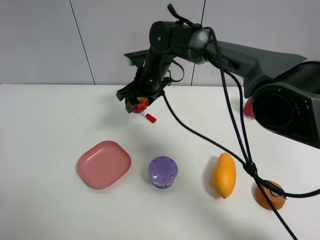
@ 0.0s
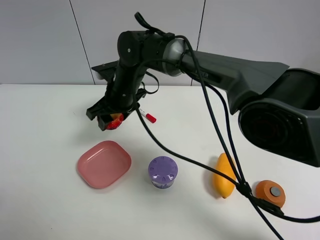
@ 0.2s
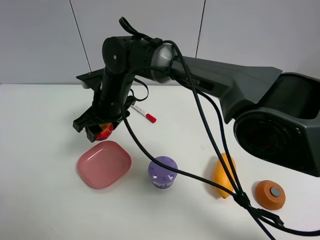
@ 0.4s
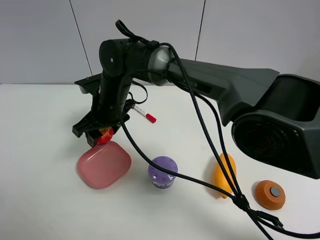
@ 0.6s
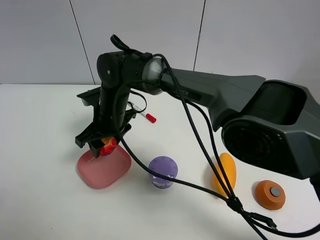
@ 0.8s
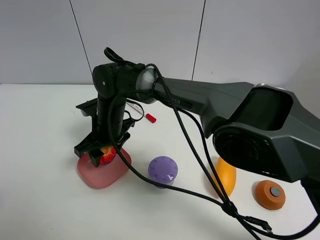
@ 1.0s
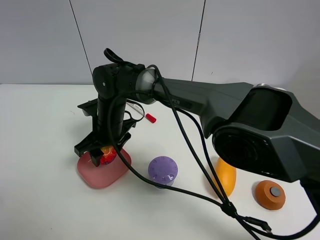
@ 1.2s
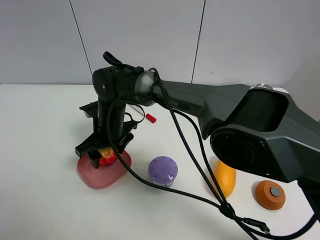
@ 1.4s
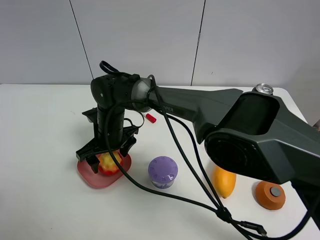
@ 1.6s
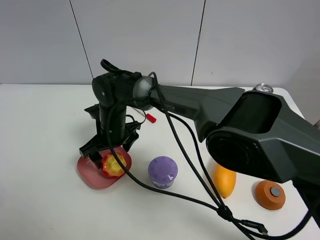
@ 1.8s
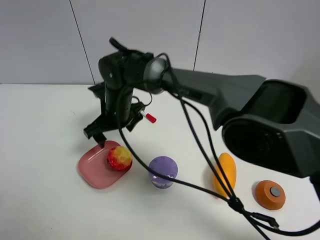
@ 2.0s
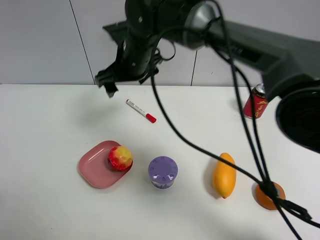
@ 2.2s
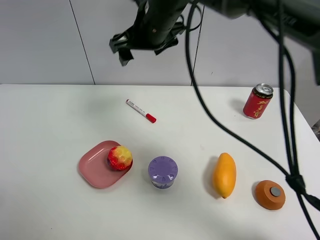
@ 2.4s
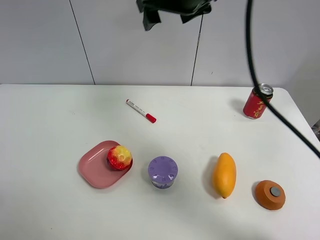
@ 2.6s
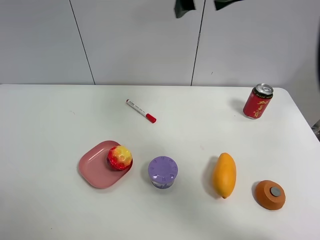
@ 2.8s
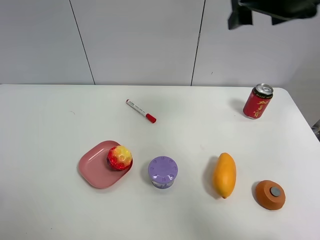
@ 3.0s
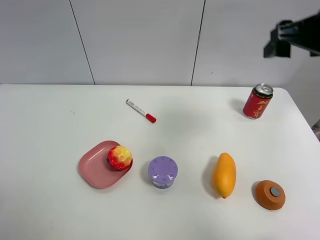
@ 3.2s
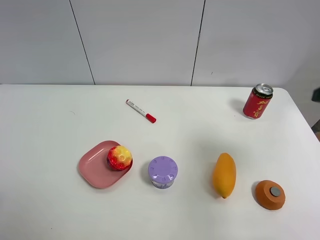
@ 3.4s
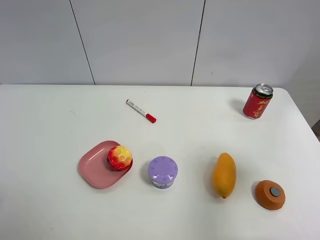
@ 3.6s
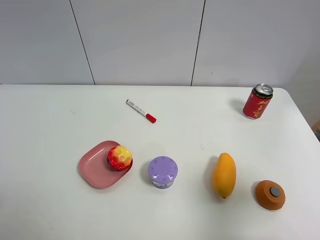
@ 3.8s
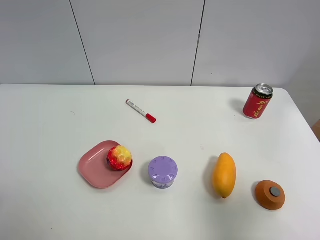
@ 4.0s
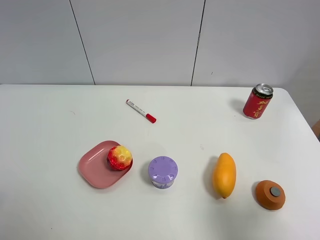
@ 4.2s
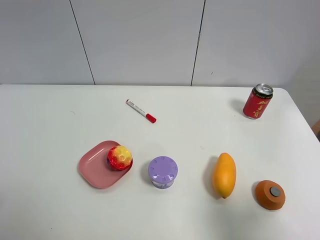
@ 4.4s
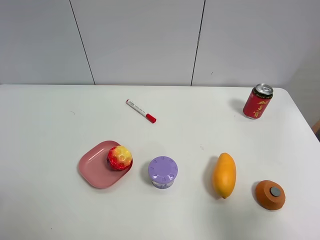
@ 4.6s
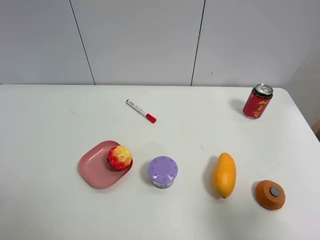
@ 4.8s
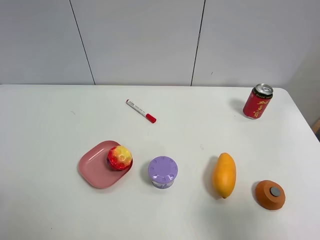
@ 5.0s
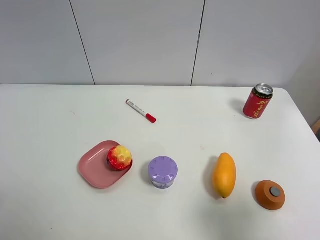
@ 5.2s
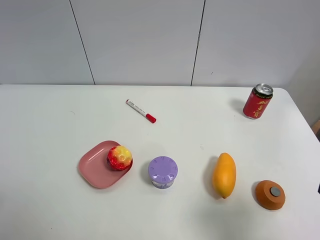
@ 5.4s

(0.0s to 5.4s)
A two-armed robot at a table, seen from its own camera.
Task of the whole recording: the gripper move the object.
Step, 0.0s - 1.6s: Place the colorful ball into the pink plate with the right gripper.
0.0s - 1.4s: The right gripper heads backward, to the left and downward, covering about 15 cm, and opens up.
1.4s - 2.8s: The right gripper shifts about 35 cm upward and to the right.
2.8s - 4.0s: The right gripper shifts approximately 40 cm backward and to the right.

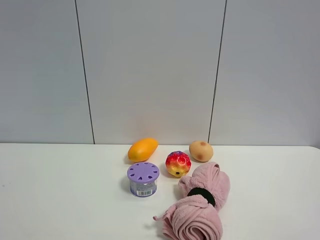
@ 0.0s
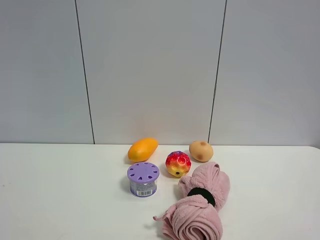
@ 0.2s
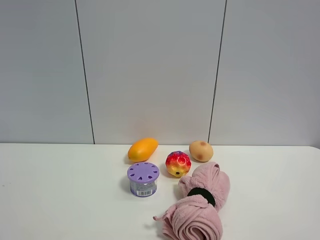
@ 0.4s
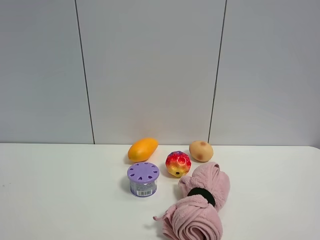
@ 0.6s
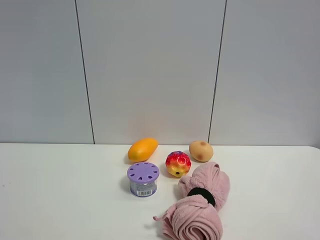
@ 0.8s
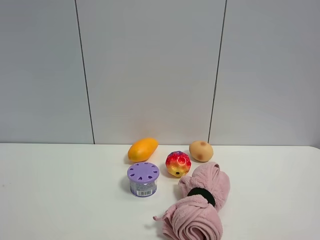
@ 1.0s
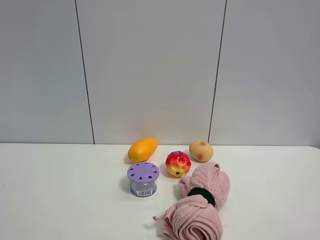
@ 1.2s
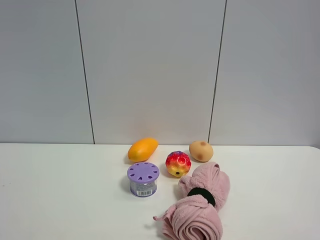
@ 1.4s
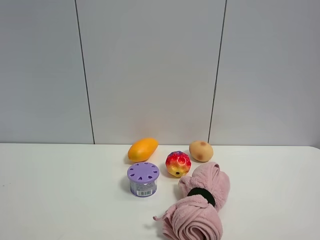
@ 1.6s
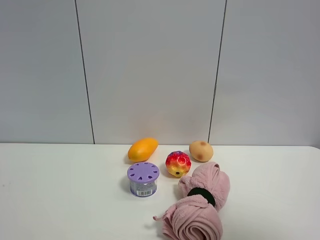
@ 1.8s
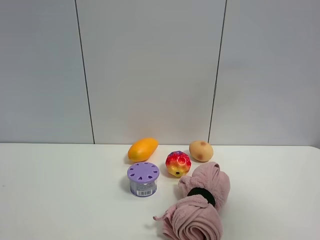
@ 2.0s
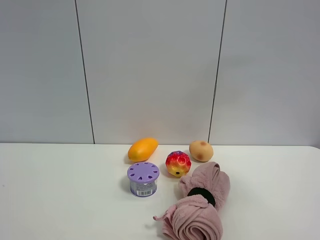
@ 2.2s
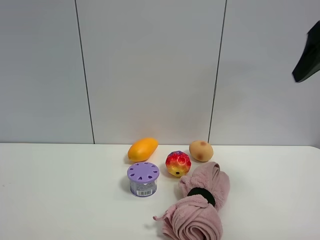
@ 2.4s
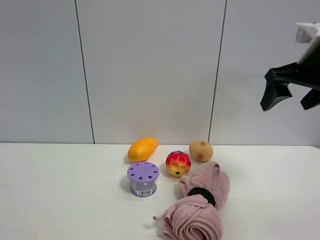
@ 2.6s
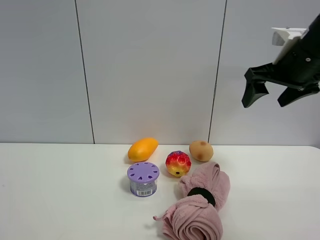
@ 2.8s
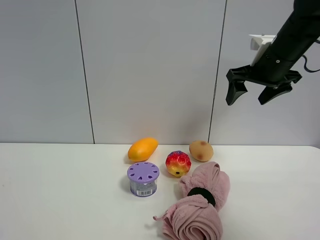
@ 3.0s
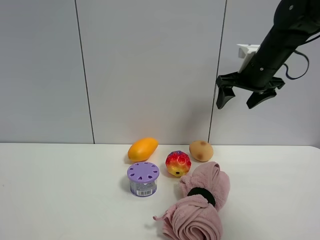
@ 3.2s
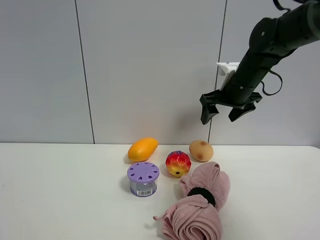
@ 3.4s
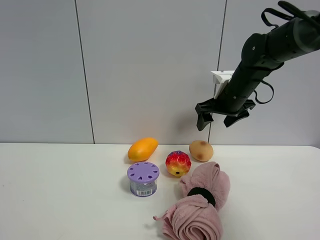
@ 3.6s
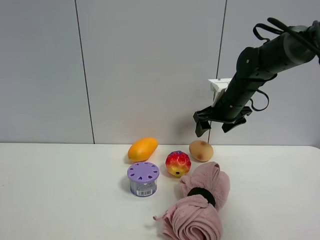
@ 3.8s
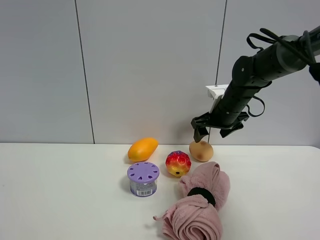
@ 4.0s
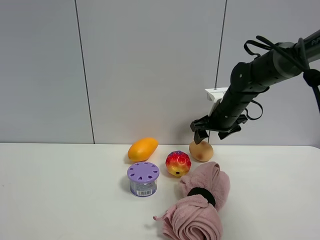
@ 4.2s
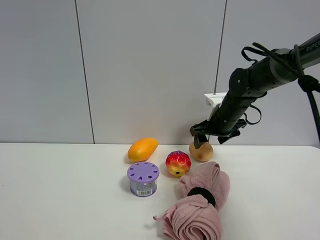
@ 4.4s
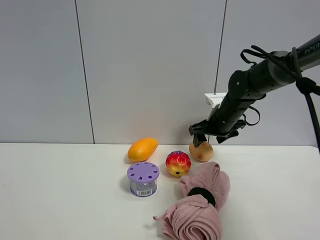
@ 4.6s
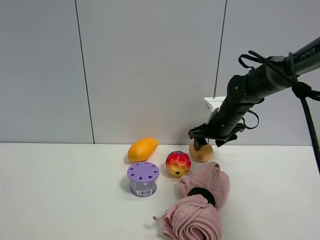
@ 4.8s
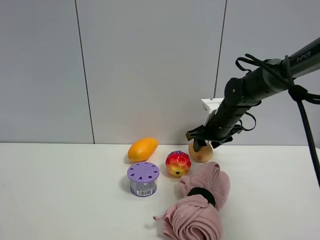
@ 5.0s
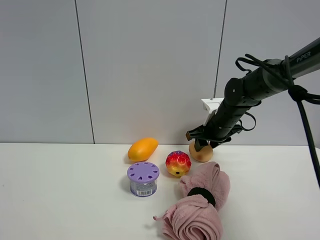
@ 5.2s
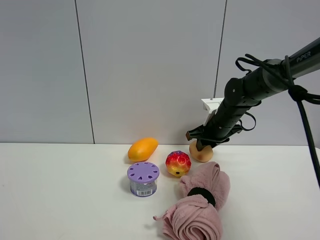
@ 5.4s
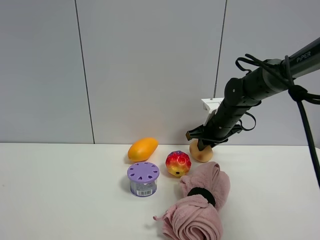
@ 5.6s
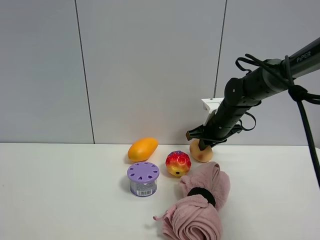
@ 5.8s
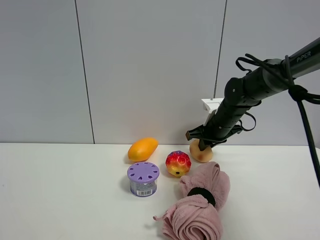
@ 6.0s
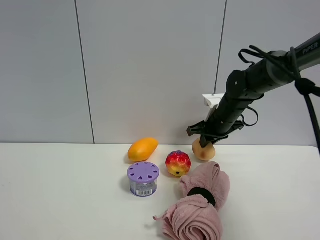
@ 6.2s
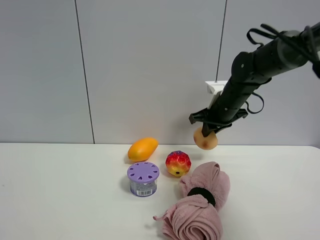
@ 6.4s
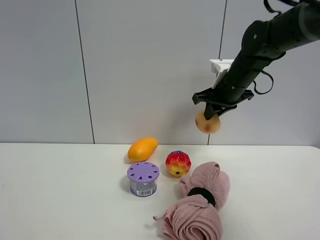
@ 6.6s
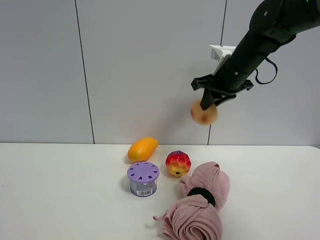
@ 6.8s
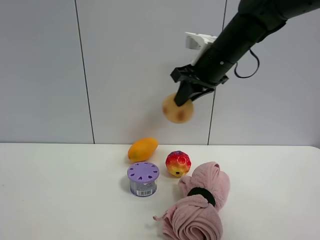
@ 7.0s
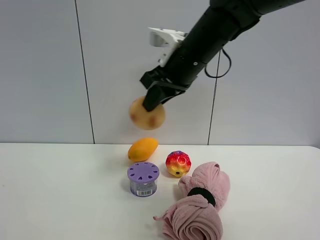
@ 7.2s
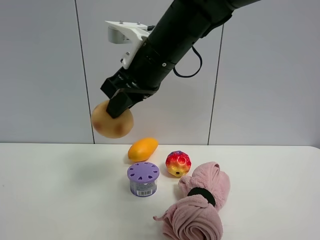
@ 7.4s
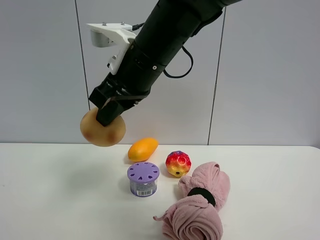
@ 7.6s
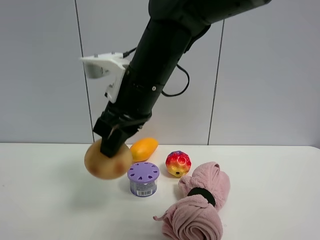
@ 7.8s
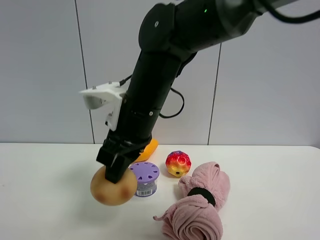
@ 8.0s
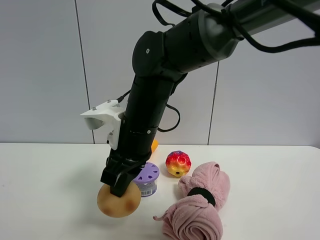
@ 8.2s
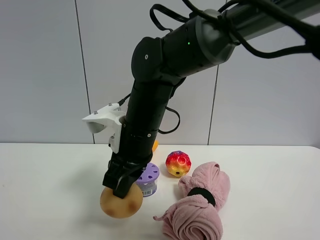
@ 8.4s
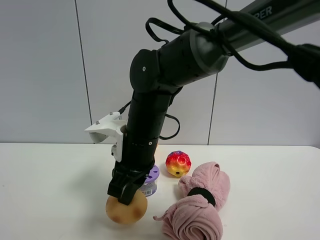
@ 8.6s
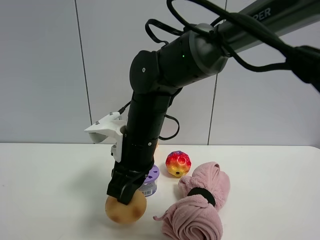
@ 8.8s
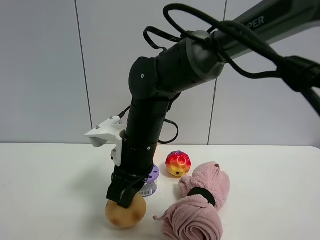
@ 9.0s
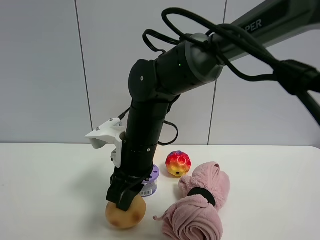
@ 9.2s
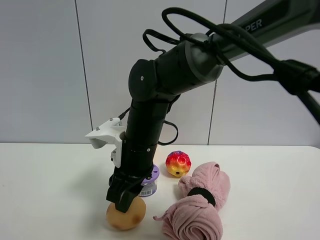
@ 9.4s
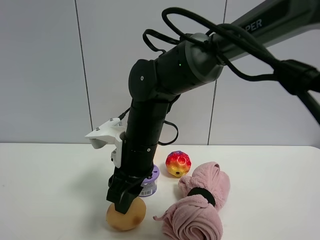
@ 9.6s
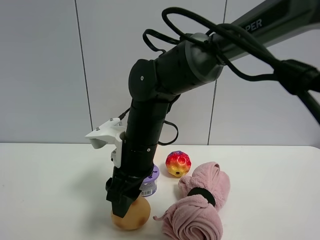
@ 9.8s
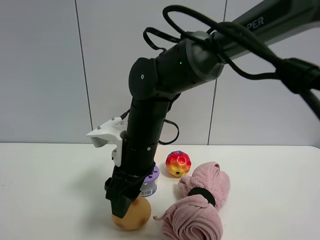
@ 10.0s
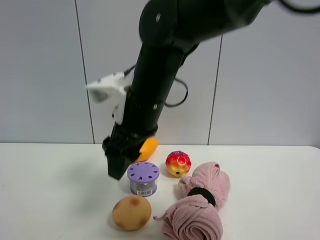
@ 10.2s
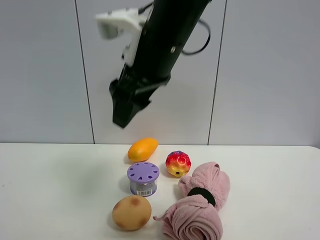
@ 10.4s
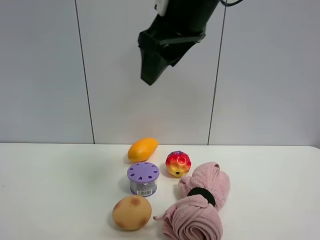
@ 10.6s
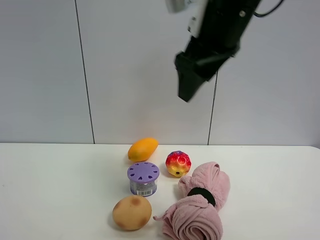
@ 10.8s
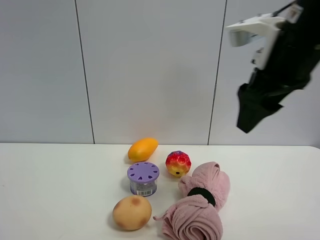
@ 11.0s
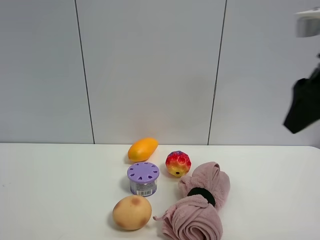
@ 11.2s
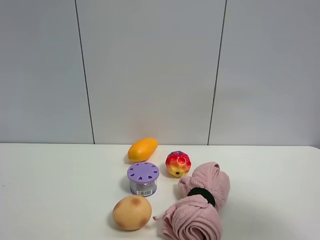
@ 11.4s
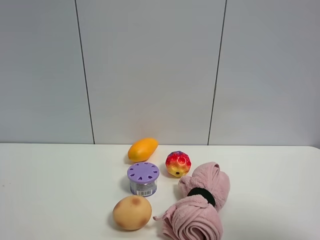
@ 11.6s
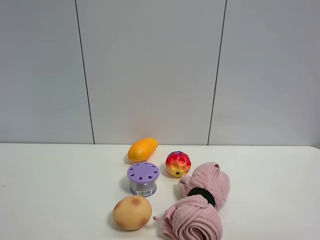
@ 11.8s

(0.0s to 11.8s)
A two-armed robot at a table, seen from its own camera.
Task of the whole recording: the gripper move the object.
Step, 0.0s - 5.6s: Grasp the egg yolk pastry with the right gripper.
Step, 5.8s - 10.2s: Place the egg yolk pastry on the table with the right gripper.
0.0s - 1.4s: Neither gripper changes place.
1.4s - 3.0s: The right gripper goes approximately 40 cm forward.
3.0s - 4.4s: The right gripper shifts about 15 cm downward and forward.
4.4s - 6.0s: The right gripper closes.
6.0s - 7.4s: The right gripper moves to the left, backward and upward, roughly 30 cm.
7.4s - 8.8s: The right gripper is displaced downward by roughly 15 cm.
8.8s - 10.4s: The right gripper travels upward by some 15 cm, and opens its fingers.
10.4s - 11.8s: The right gripper shifts roughly 40 cm to the right and backward.

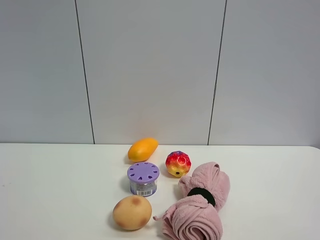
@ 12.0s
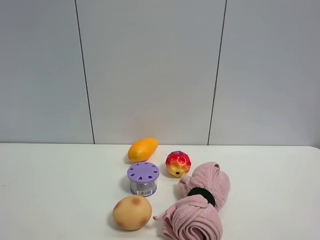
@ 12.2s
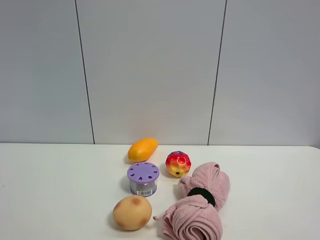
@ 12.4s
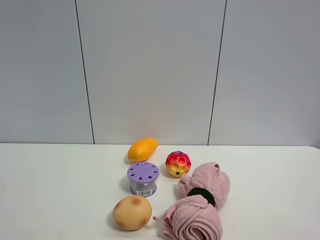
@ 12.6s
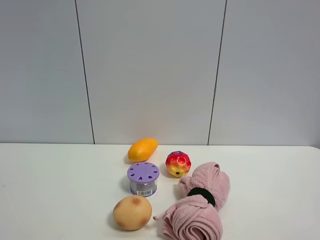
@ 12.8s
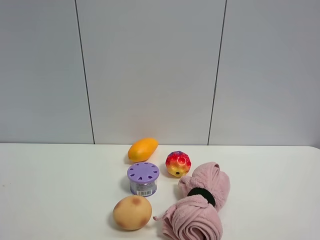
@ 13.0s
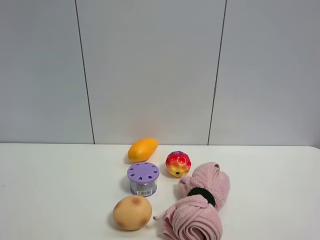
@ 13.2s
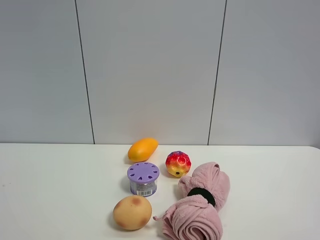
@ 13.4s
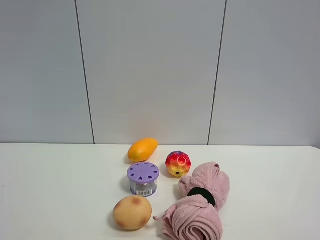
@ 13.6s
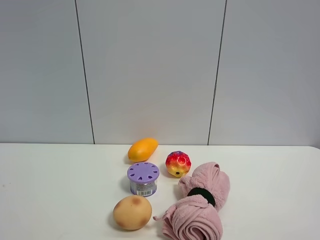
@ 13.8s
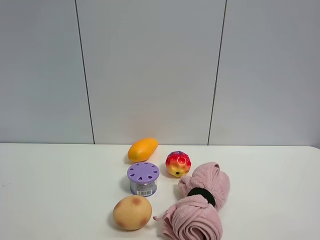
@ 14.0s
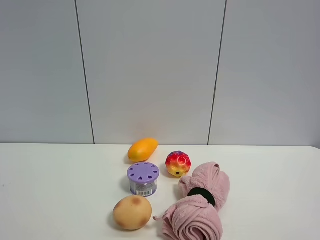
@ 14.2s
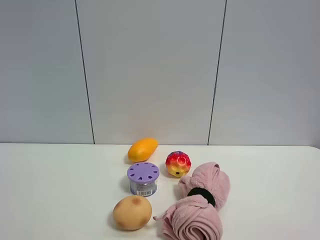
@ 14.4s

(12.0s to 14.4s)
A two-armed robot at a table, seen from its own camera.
Task of the whole recording: the gripper move the object.
13.2s - 14.4s: The two grippers keep their place.

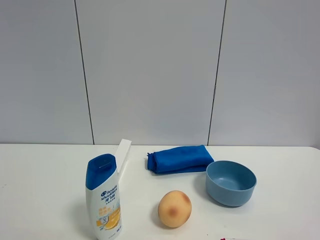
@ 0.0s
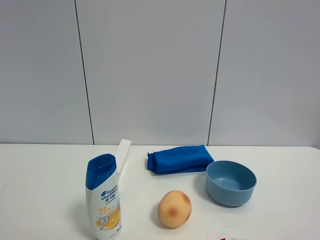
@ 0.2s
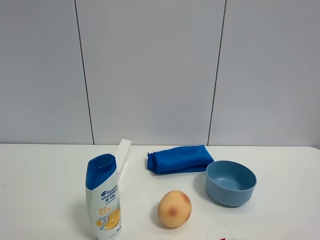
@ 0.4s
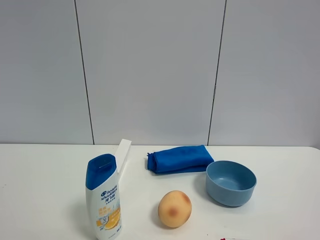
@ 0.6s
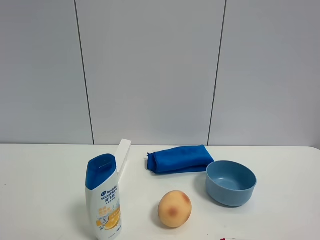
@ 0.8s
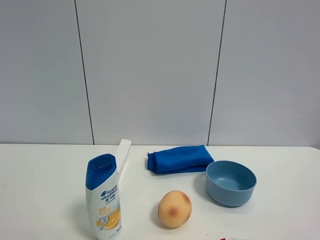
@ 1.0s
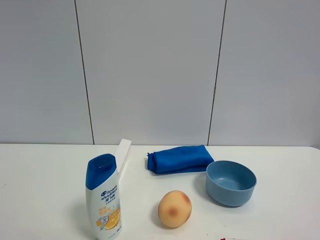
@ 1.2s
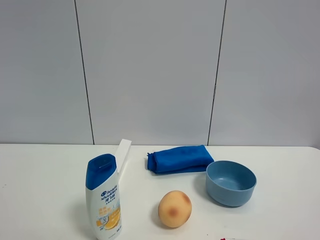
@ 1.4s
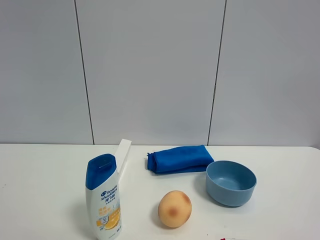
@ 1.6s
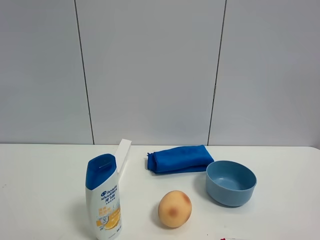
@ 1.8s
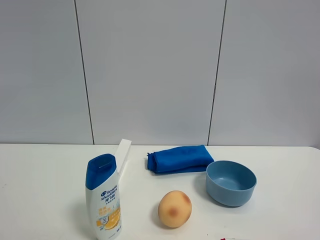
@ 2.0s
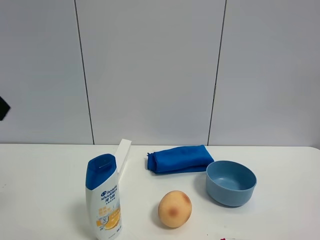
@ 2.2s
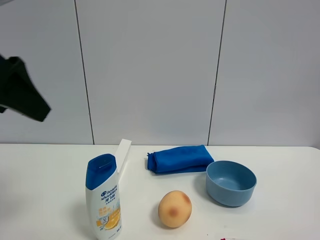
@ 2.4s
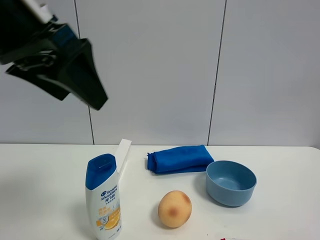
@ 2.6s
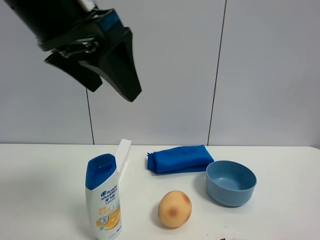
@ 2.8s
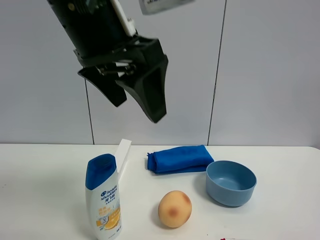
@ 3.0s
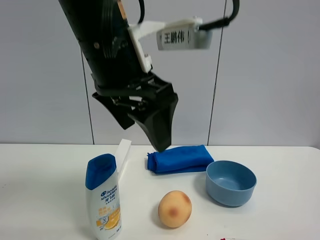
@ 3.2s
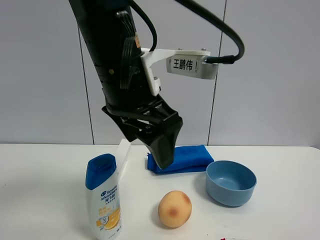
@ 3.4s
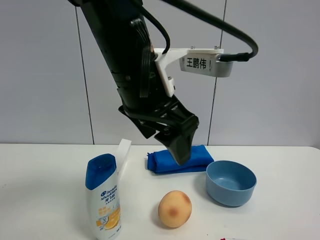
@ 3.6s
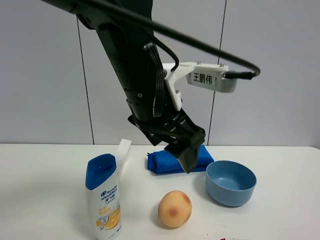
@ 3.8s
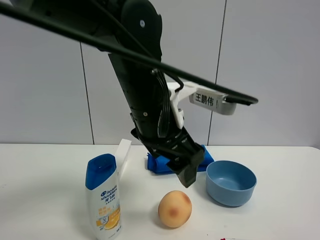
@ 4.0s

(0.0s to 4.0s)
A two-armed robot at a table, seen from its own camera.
Task of the whole recording: the gripper move the object.
1.4s - 2.6s: The left gripper moves to the right and forward, roughly 25 cm.
2.6s - 4.0s: The left gripper goes some 20 cm to the right, downward and forward.
